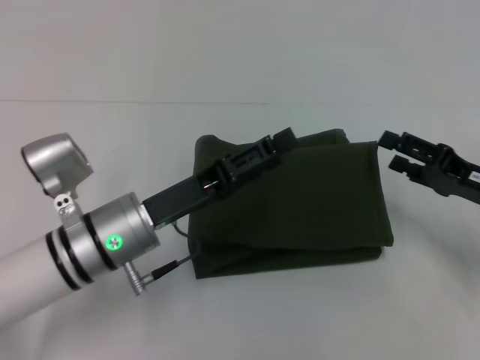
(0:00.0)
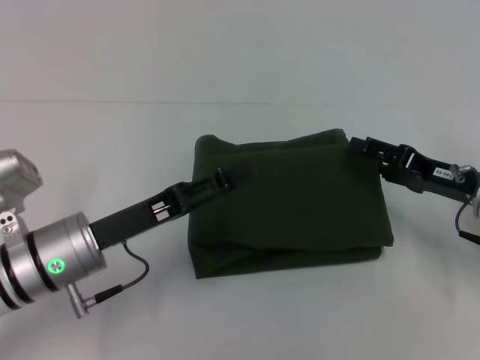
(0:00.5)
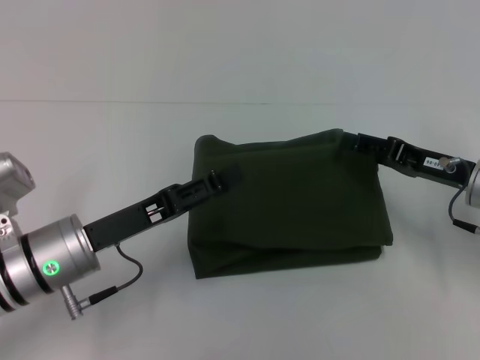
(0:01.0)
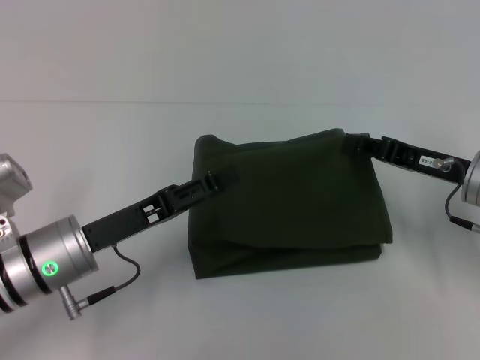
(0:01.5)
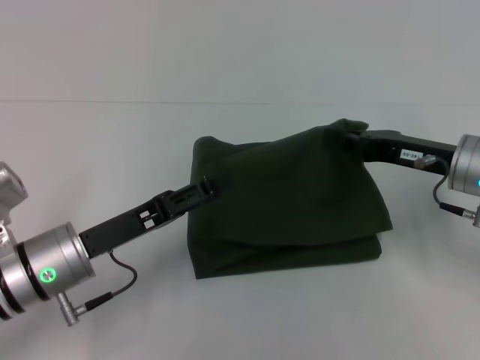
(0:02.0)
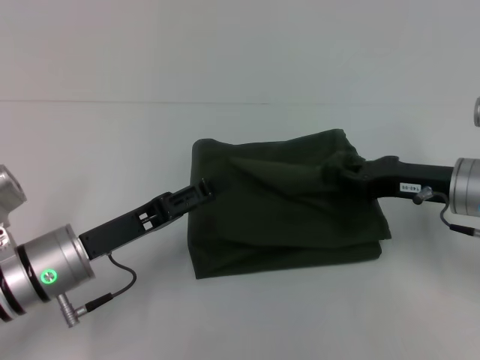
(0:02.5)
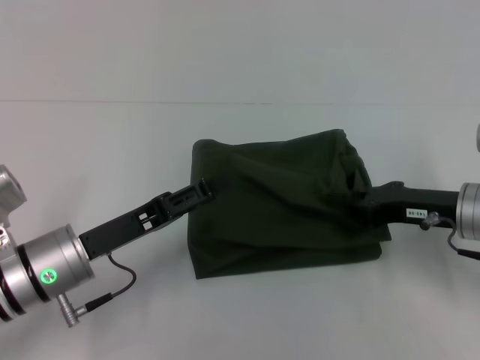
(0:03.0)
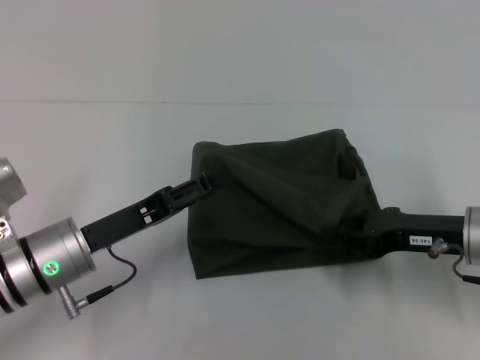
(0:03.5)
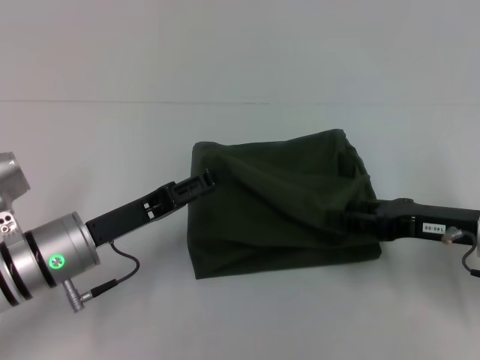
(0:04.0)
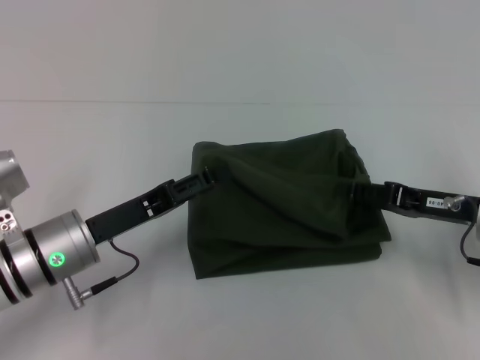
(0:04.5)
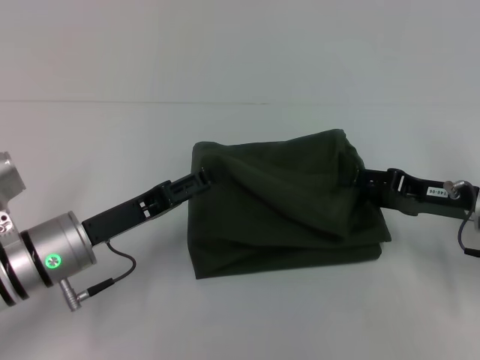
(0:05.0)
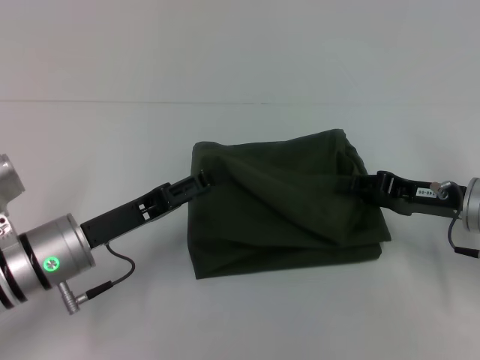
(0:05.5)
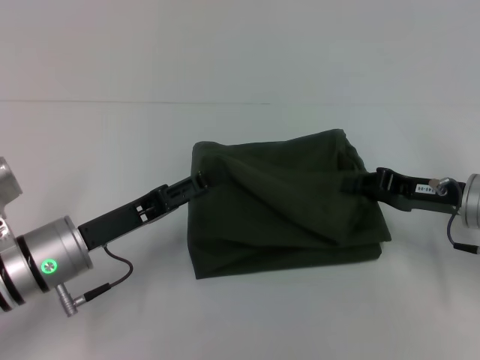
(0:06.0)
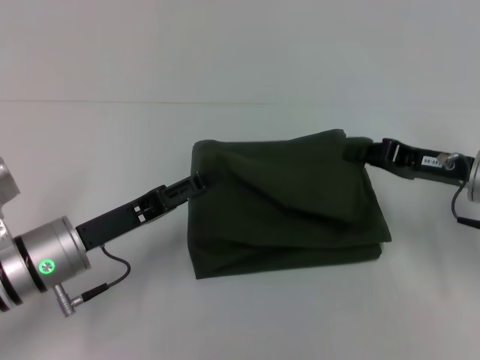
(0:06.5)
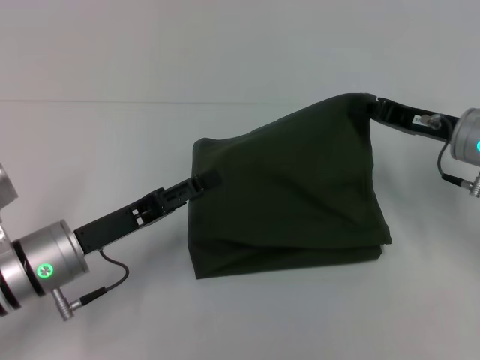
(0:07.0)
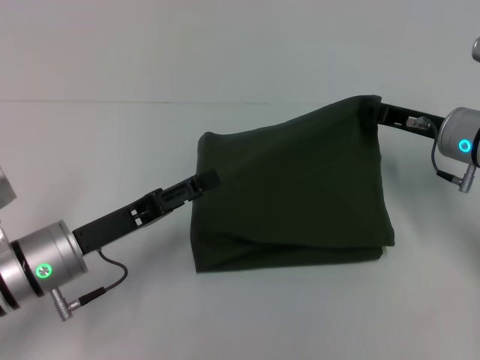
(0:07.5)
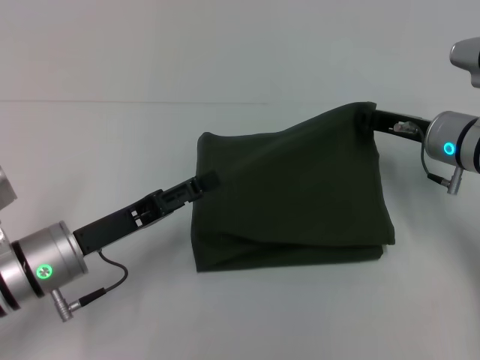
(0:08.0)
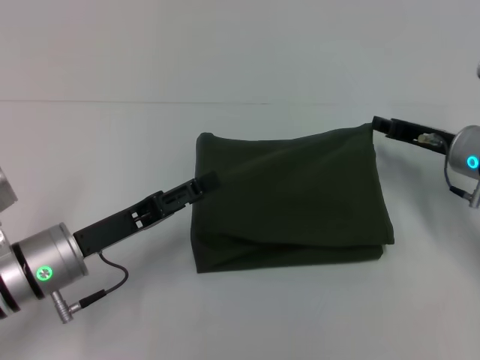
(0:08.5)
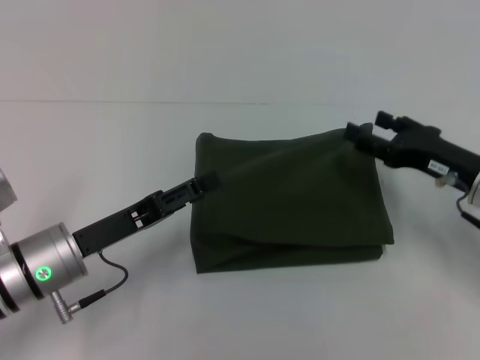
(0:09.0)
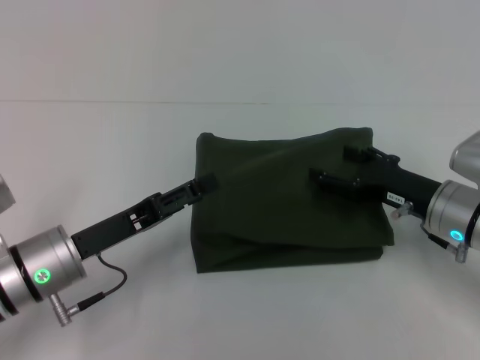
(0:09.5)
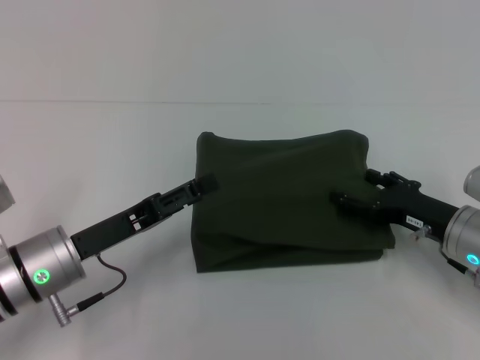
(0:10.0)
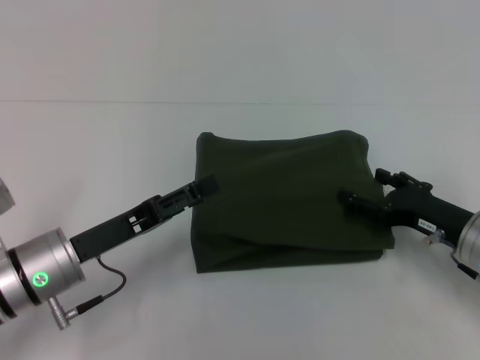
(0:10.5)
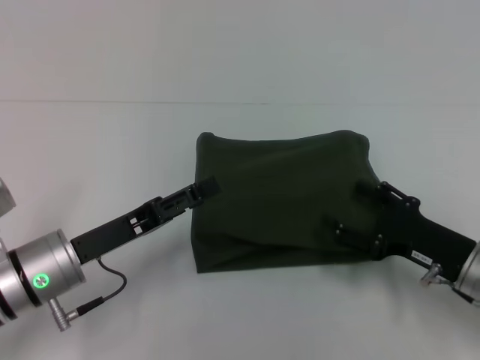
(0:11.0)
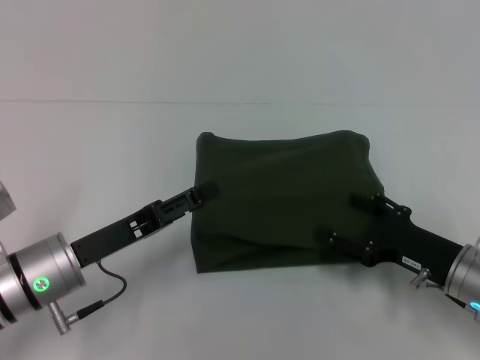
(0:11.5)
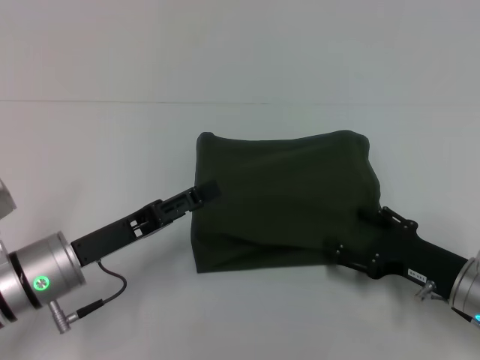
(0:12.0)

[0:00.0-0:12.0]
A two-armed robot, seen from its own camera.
0:00.0 to 0:02.0: The two grippers go about 5 cm to the left. The right gripper closes up.
0:02.0 to 0:04.0: The right gripper ends up some 5 cm from where it was, and opens its fingers.
0:04.0 to 0:06.0: The right gripper closes.
0:06.0 to 0:08.0: The right gripper is displaced forward by approximately 5 cm.
0:08.0 to 0:10.0: The right gripper heads backward and downward, covering about 10 cm, and opens up.
0:10.0 to 0:12.0: The right gripper heads backward, covering roughly 5 cm.

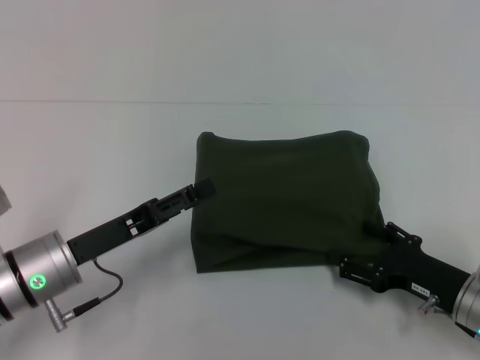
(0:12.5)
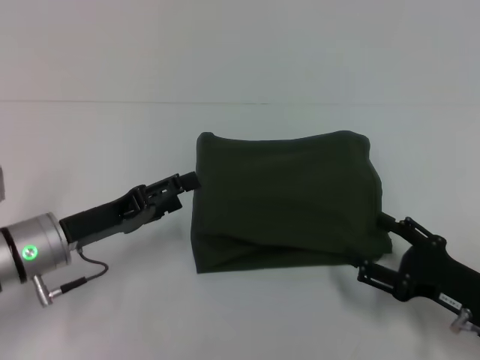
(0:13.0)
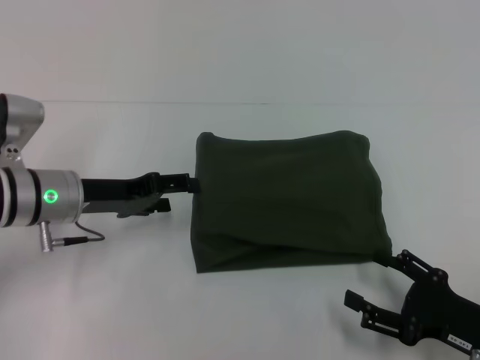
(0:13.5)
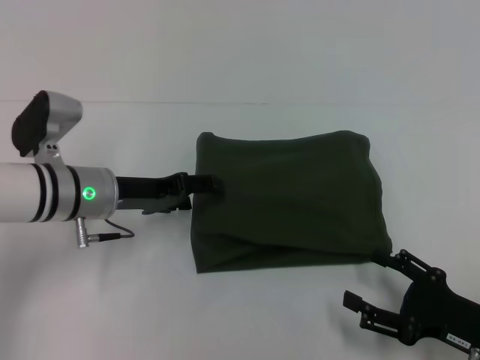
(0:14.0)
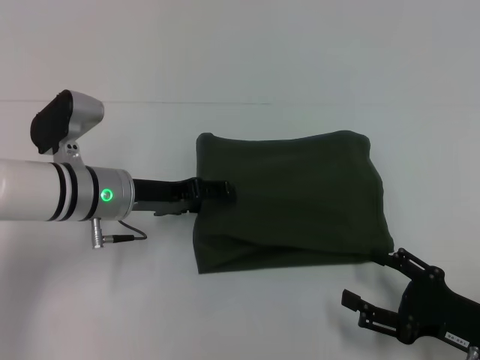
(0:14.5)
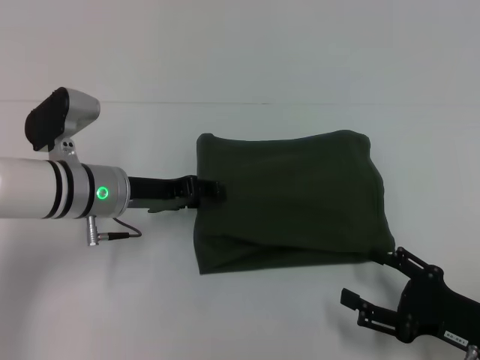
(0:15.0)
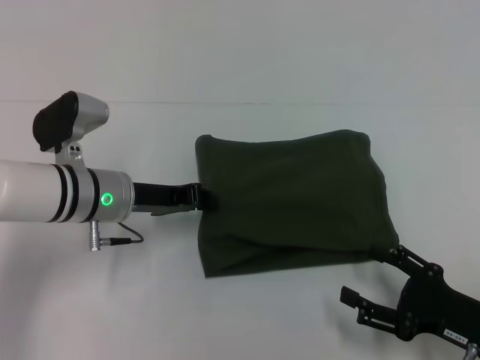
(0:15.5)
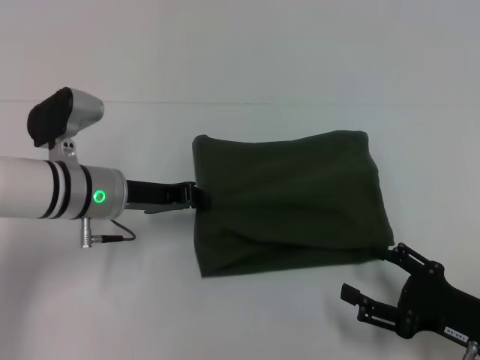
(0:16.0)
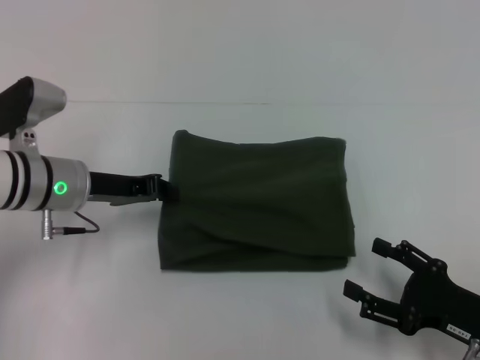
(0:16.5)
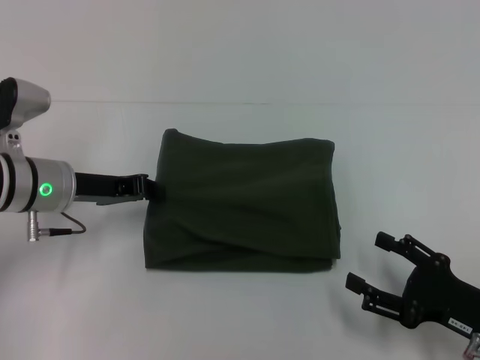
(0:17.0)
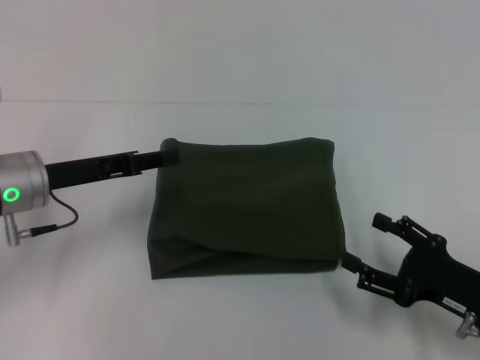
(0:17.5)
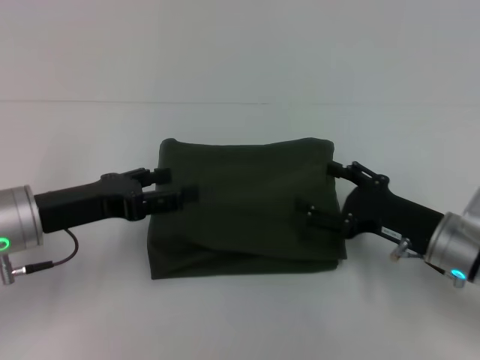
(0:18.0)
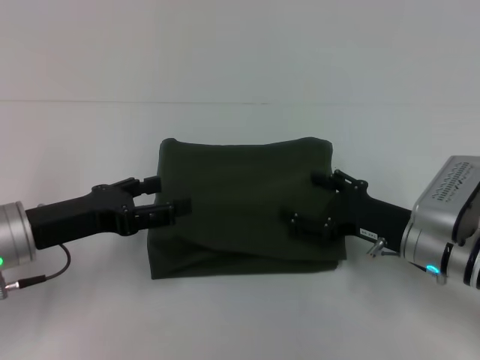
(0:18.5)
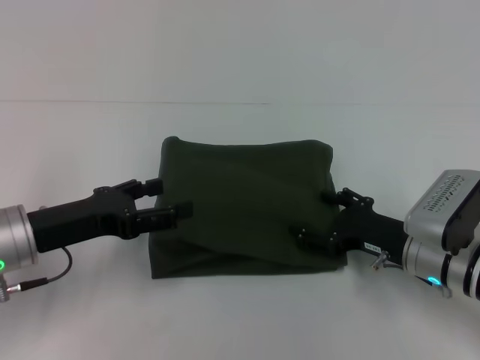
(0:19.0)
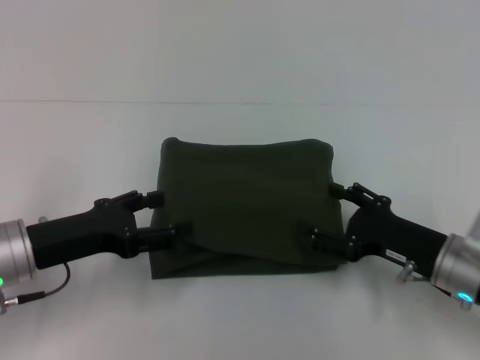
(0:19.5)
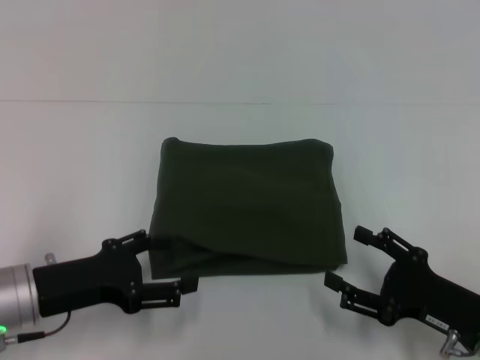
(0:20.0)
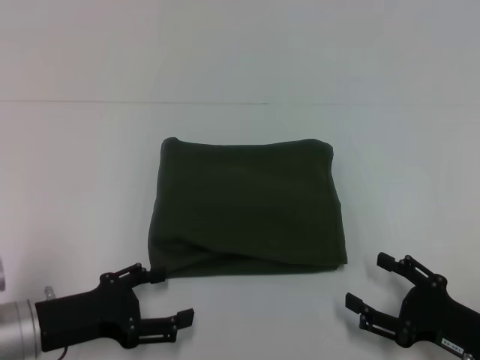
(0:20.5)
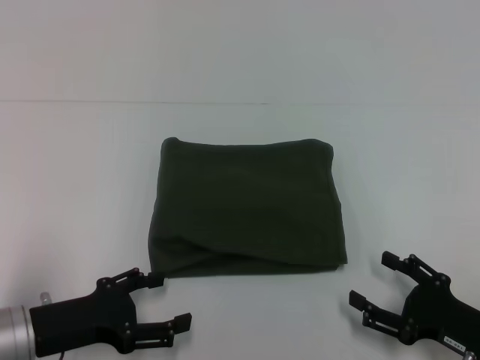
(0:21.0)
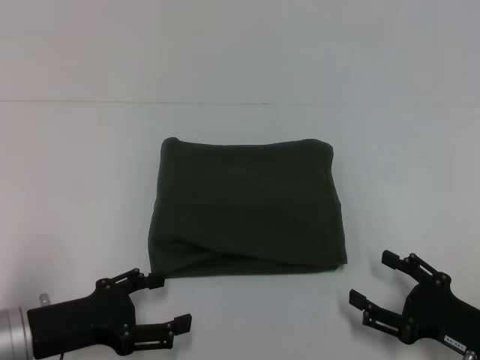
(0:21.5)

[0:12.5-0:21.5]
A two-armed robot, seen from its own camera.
0:12.5 to 0:14.5: The right gripper is displaced backward by some 5 cm. Meanwhile the left gripper goes approximately 10 cm forward.
0:14.5 to 0:17.0: The left gripper travels to the left by roughly 5 cm, and closes its fingers.
0:17.0 to 0:19.5: The left gripper travels backward by some 10 cm, and opens its fingers, while the right gripper heads forward, covering some 10 cm.
0:19.5 to 0:21.5: The right gripper shifts about 10 cm backward. Meanwhile the left gripper is displaced backward by some 5 cm.

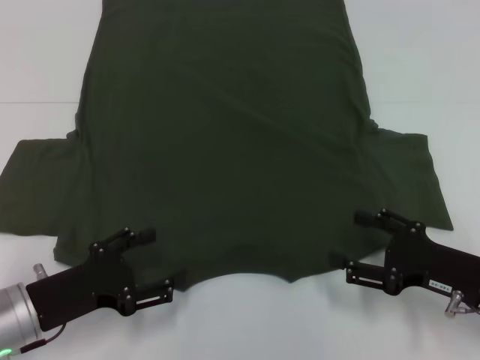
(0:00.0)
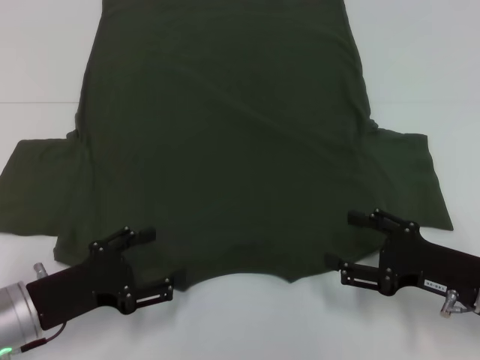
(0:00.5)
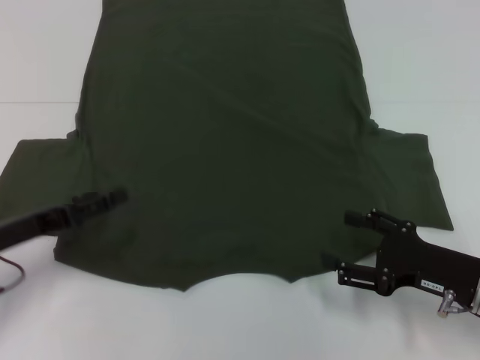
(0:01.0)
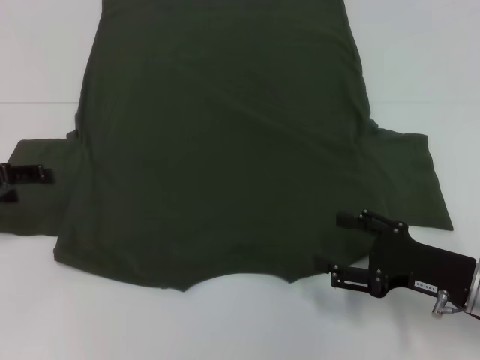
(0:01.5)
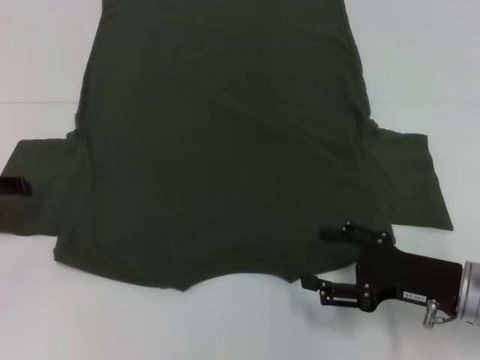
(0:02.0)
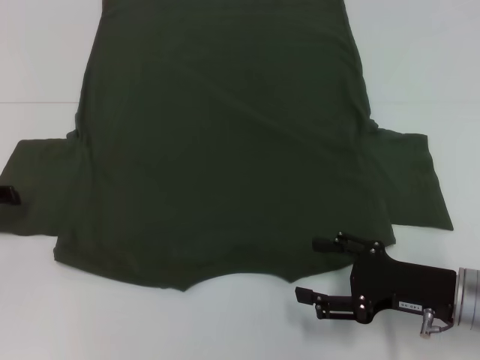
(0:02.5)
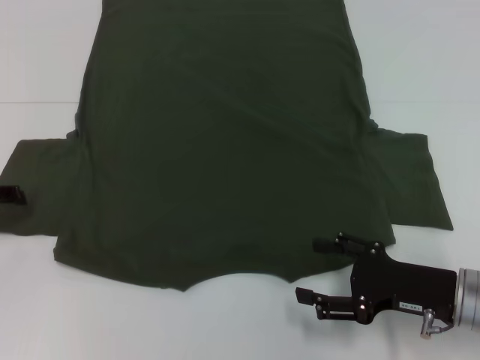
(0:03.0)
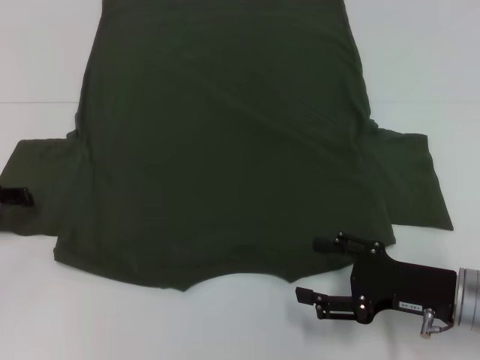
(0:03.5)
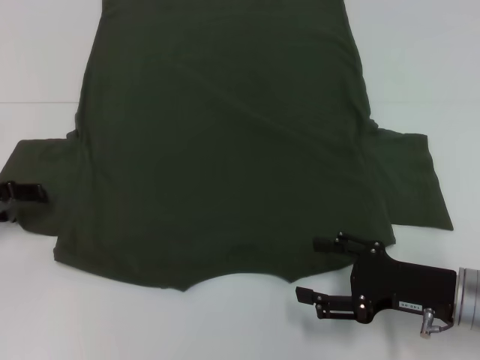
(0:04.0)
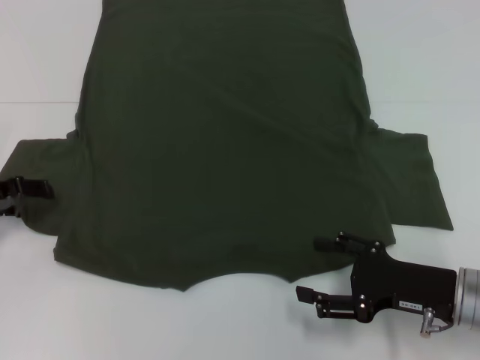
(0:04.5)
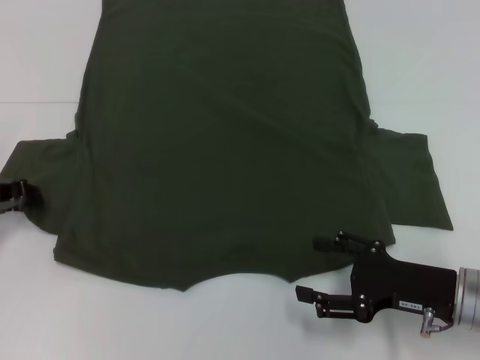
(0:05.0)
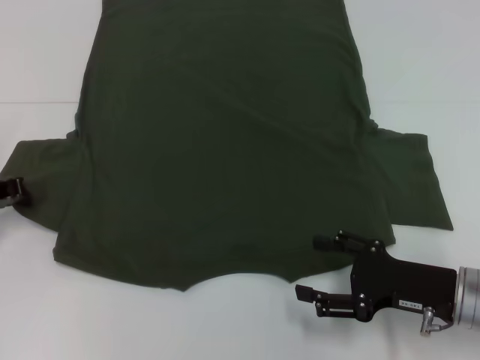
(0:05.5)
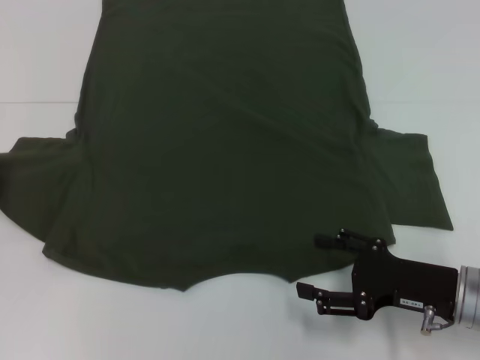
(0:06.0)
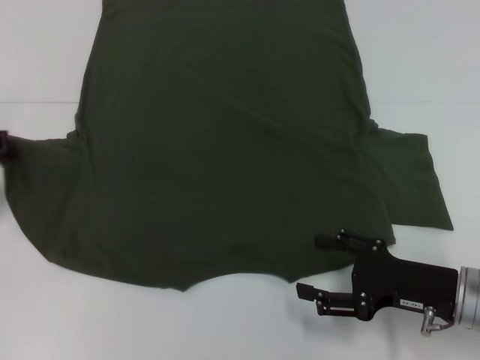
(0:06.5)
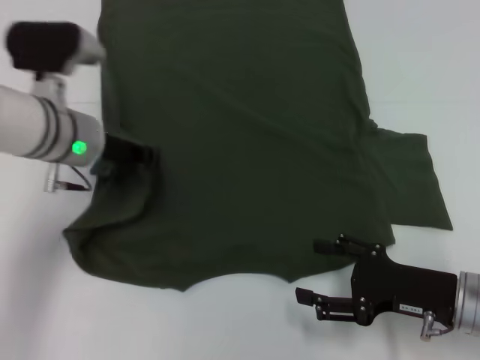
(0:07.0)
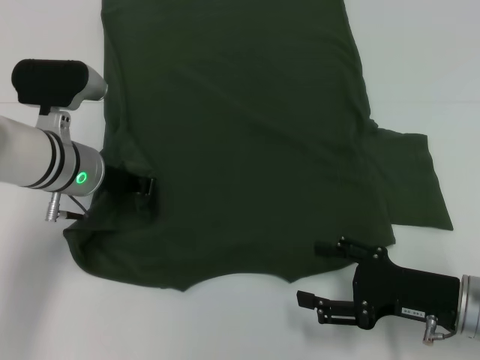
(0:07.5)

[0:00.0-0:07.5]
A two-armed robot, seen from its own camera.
0:00.0 to 0:02.0: The left gripper travels to the left, forward and upward by approximately 20 cm.
0:02.0 to 0:04.0: There are only small adjustments of the grippers.
0:04.0 to 0:05.5: The left gripper closes up.
0:05.5 to 0:07.5: The left gripper shifts roughly 15 cm to the right.